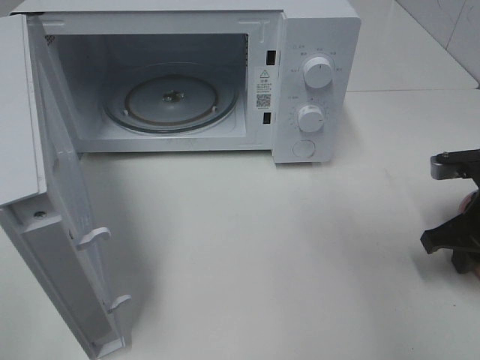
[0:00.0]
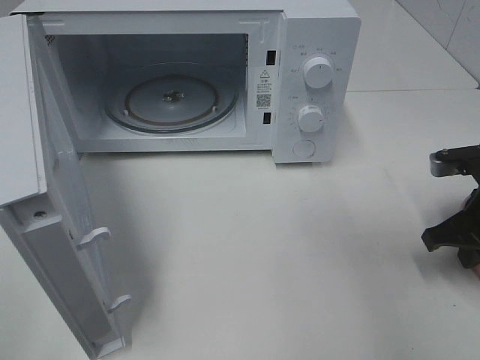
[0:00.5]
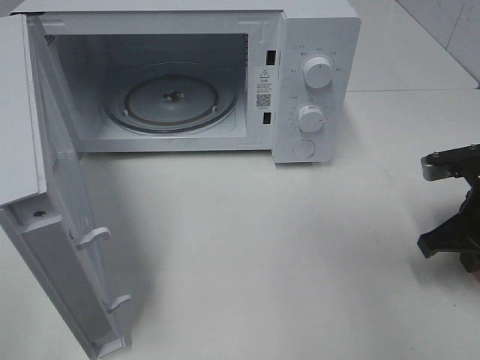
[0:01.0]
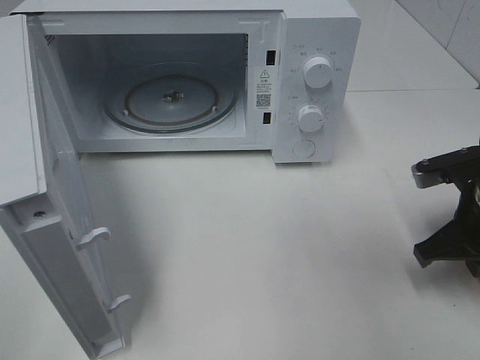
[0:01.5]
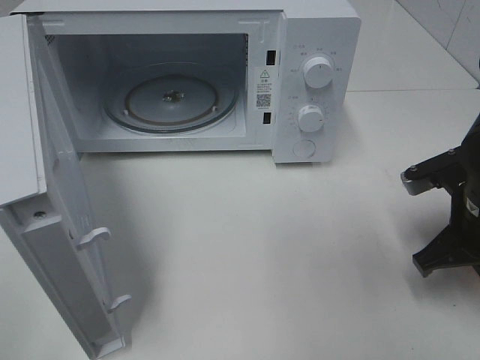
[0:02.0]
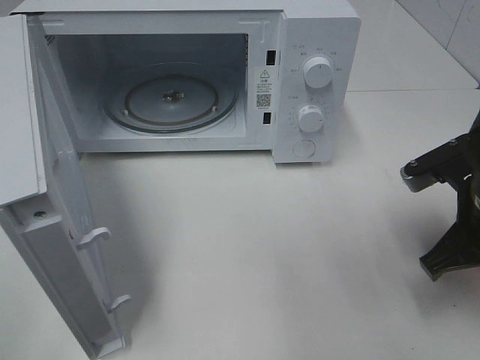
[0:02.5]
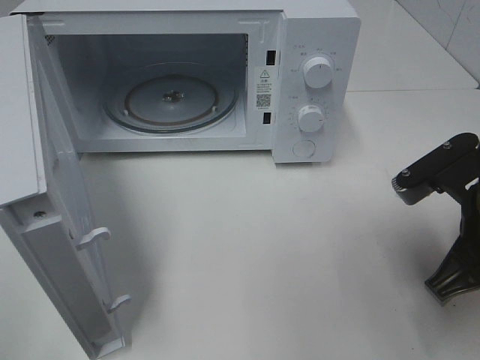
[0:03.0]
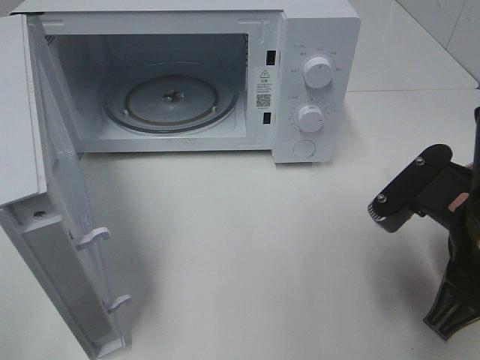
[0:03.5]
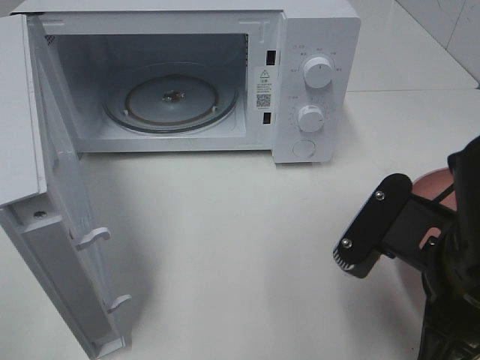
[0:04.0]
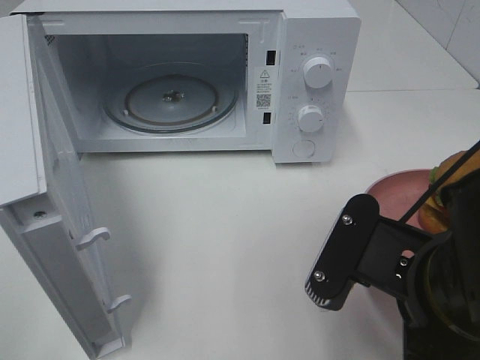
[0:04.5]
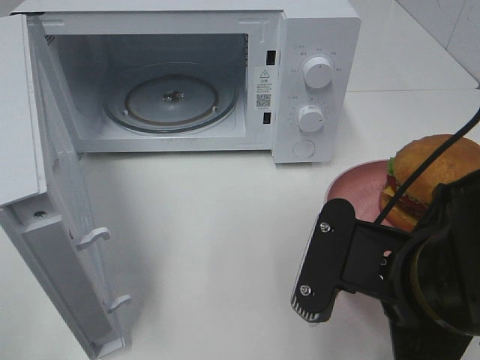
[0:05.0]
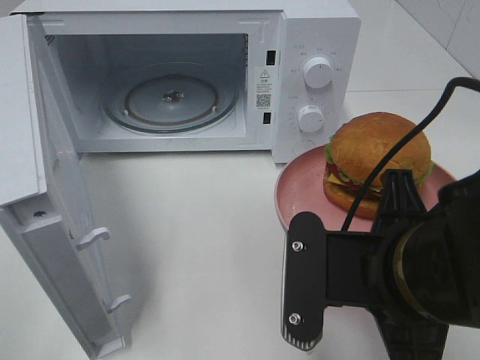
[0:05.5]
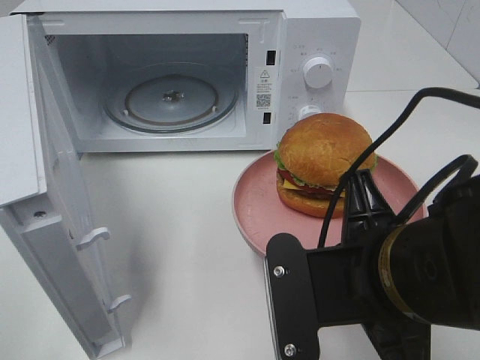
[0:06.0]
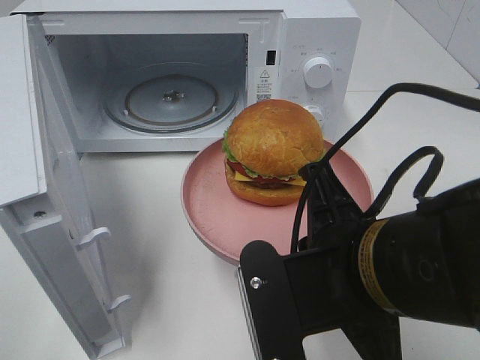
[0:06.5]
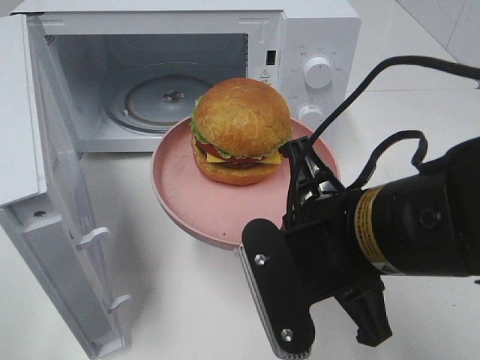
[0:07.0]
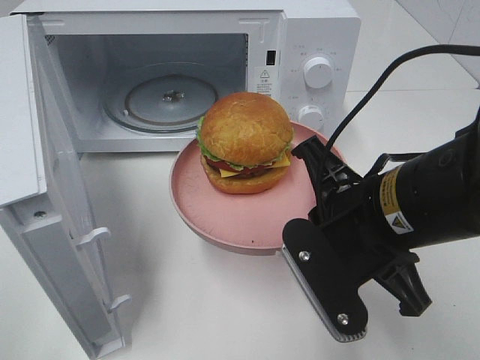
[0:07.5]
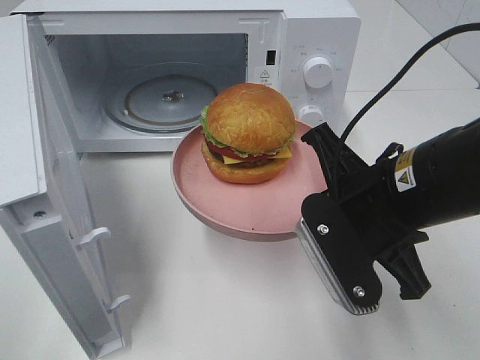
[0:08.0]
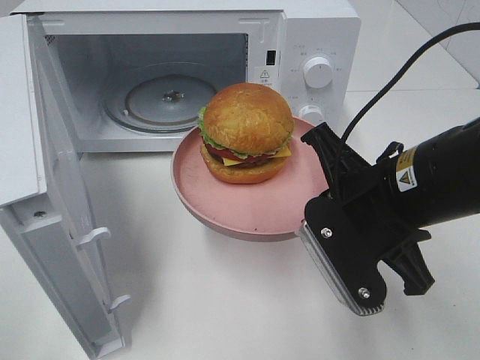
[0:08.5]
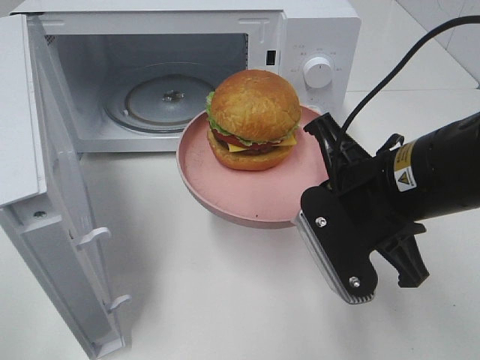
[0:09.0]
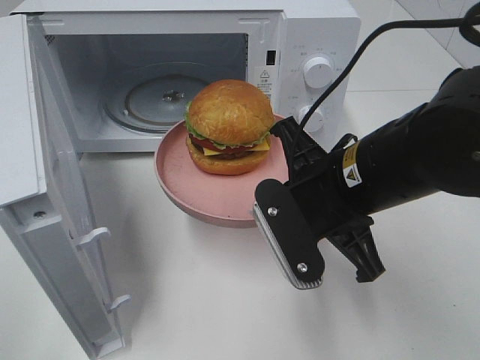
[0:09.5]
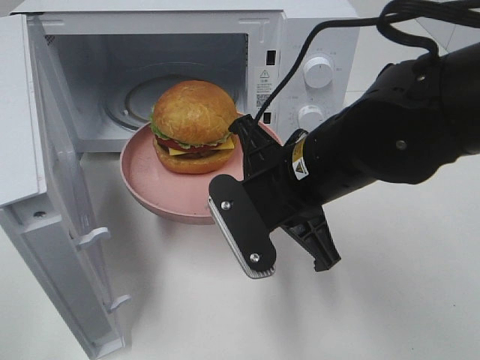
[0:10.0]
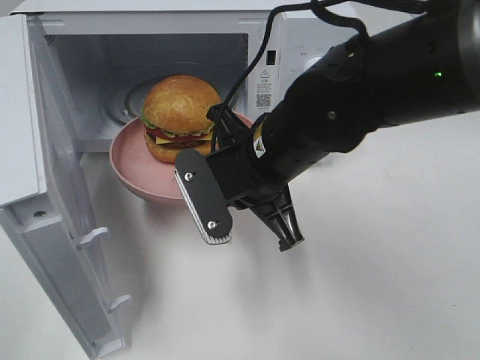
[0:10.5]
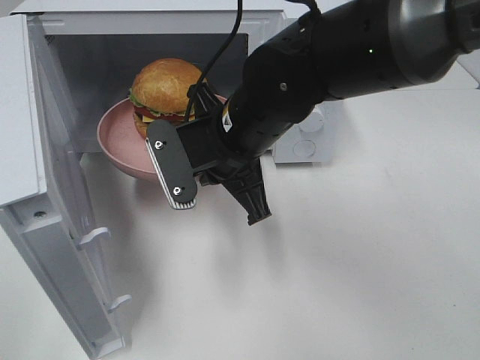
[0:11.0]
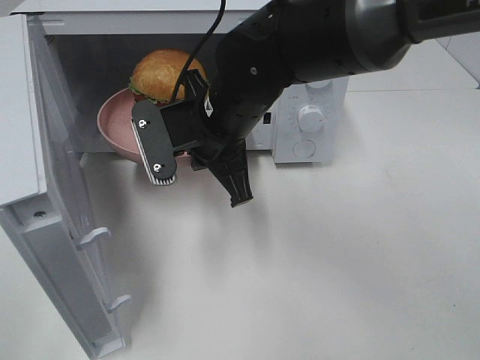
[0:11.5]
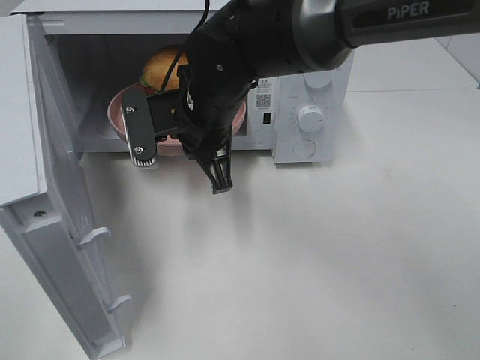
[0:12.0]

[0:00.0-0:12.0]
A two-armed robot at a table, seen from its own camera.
Task of the whole recording: Heat the burger.
0:00.0 to 0:02.0: The right gripper moves roughly 5 cm.
0:02.0 to 0:04.0: The right gripper heads backward, to the left and upward, covering about 15 cm.
0:06.0 to 0:08.0: The right gripper moves forward, some 5 cm.
0:08.0 to 0:10.0: The right gripper shifts about 5 cm to the left.
0:10.0 to 0:12.0: The right gripper is displaced forward and to the left by roughly 15 cm.

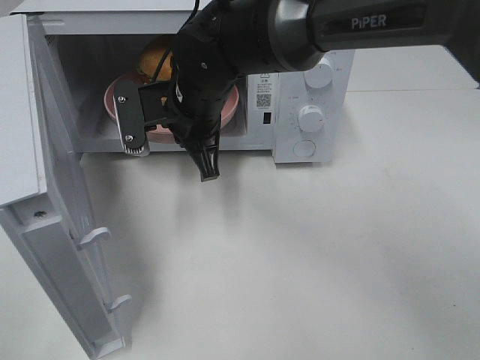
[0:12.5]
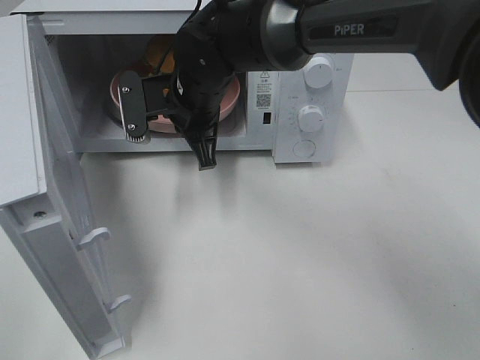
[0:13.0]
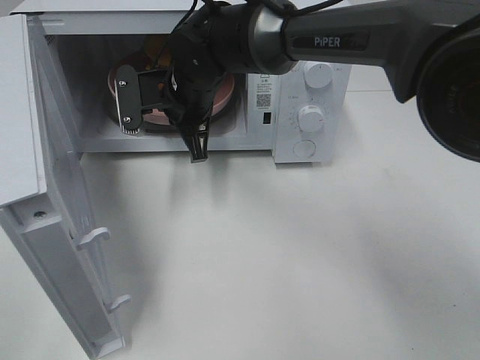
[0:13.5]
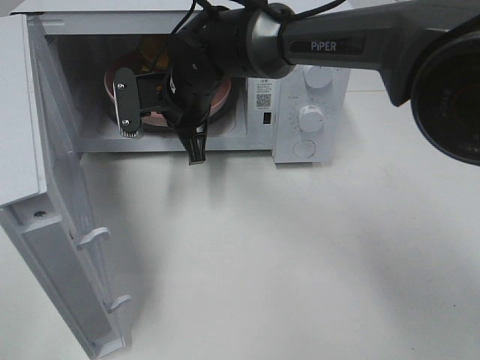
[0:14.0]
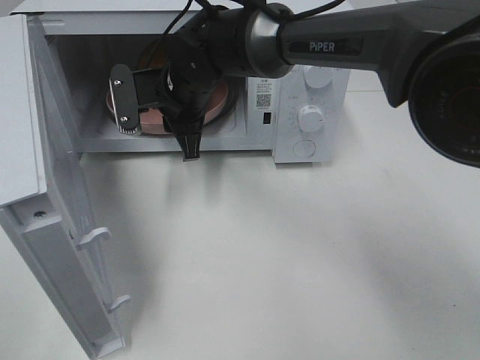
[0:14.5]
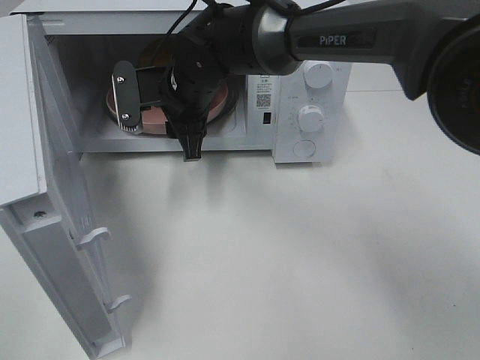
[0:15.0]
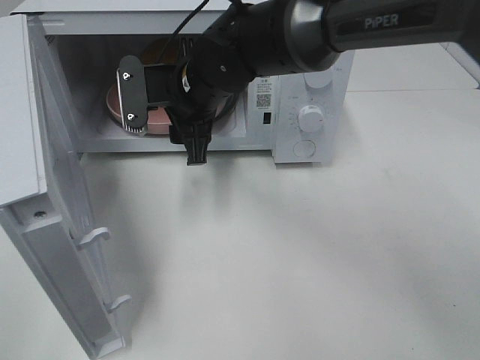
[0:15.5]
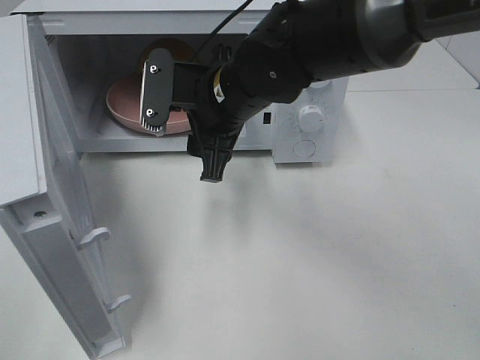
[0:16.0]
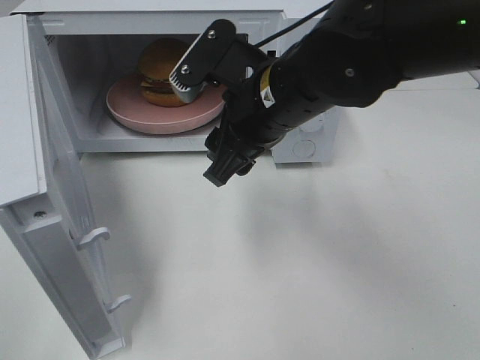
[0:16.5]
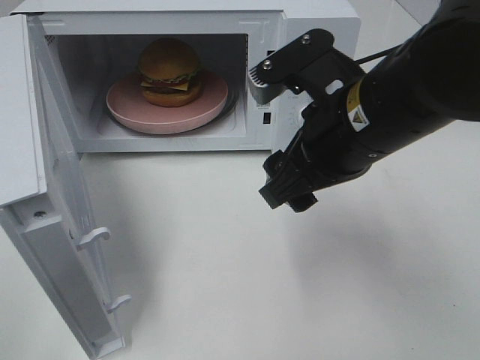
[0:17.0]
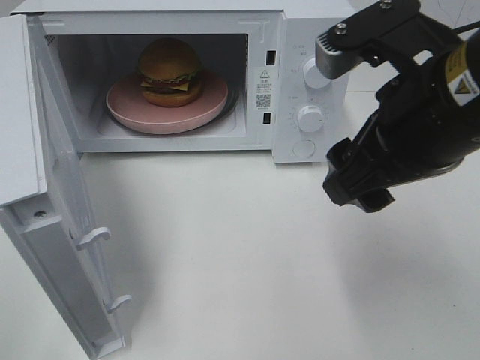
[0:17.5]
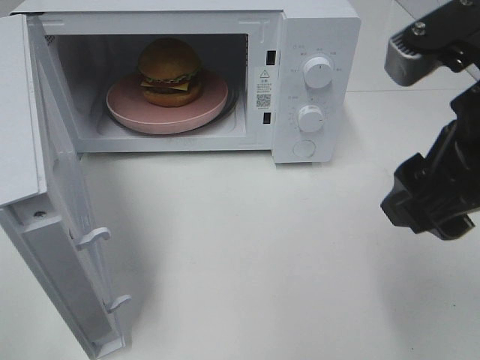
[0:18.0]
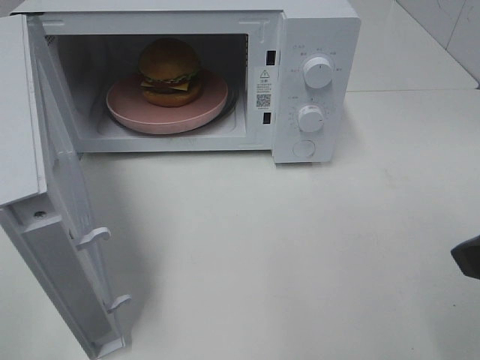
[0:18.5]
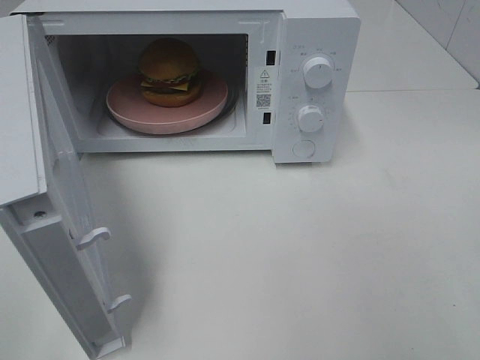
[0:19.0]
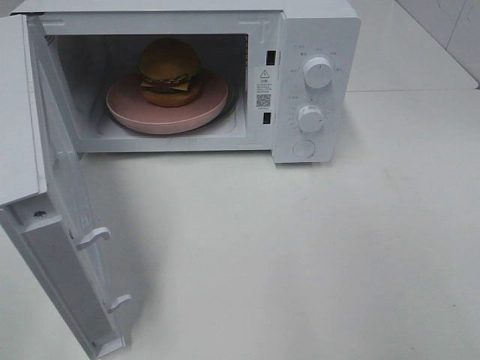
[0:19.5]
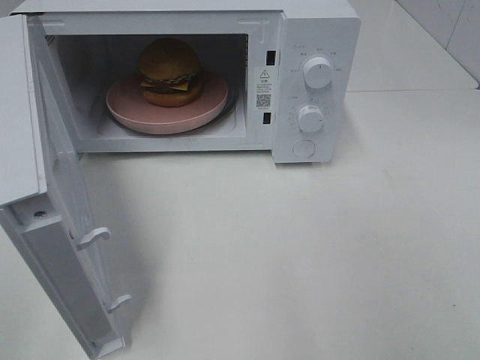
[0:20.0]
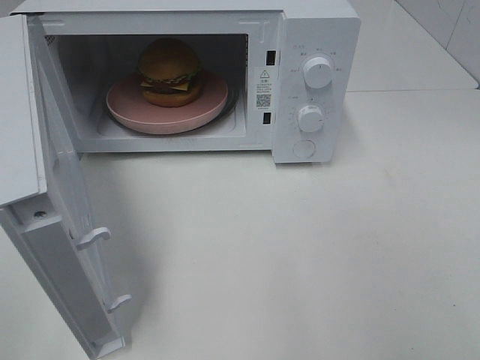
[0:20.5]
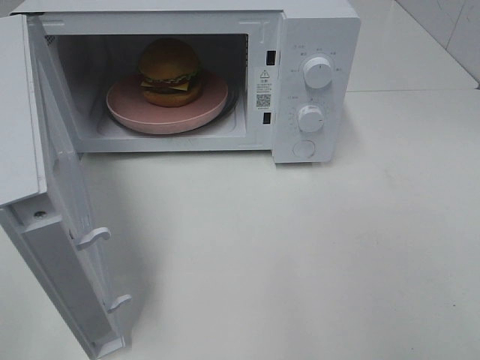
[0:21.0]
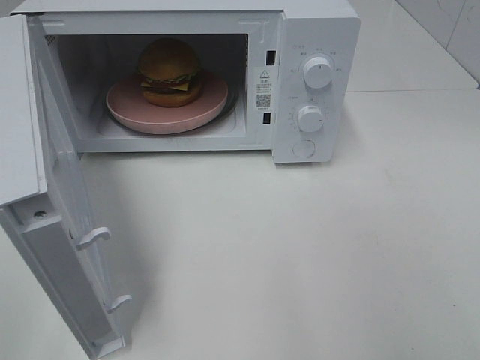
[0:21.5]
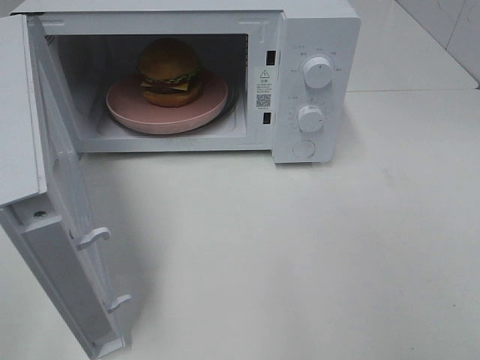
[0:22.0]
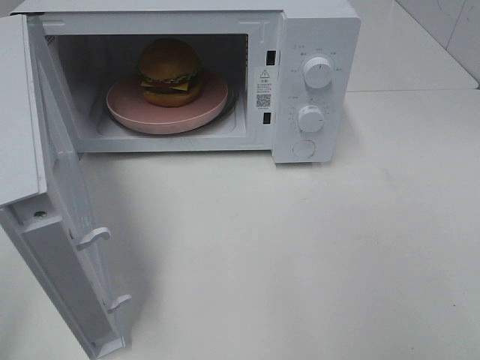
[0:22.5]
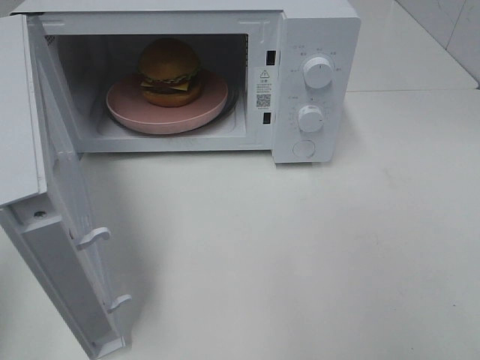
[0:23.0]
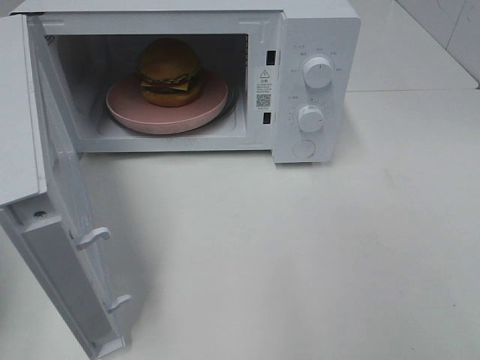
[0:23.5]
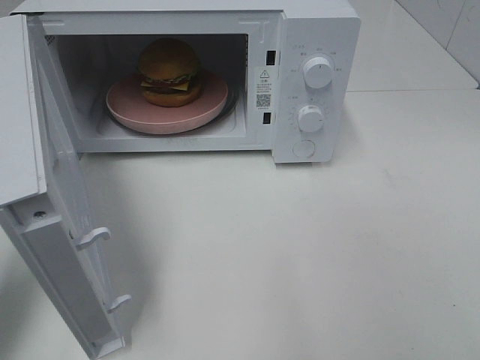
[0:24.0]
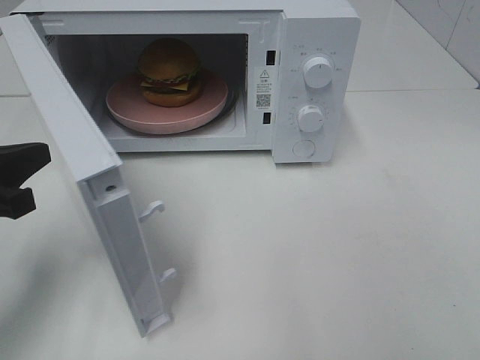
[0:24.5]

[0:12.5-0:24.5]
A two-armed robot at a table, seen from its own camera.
Task of the whole recording: Heat the burger.
Step, 0:12.5 to 0:14.5: Right hand: place the plate in the microwave.
0:12.5 to 0:14.5: The right gripper opens up.
0:14.5 to 0:16.5: The right gripper goes about 15 cm backward, to the right and upward.
0:16.5 to 0:18.5: The right gripper goes about 25 cm to the right and backward.
0:18.5 to 0:20.5: The right gripper moves backward and to the right, approximately 15 cm.
0:22.5 to 0:24.5: The left gripper is displaced forward and downward by roughly 20 cm.

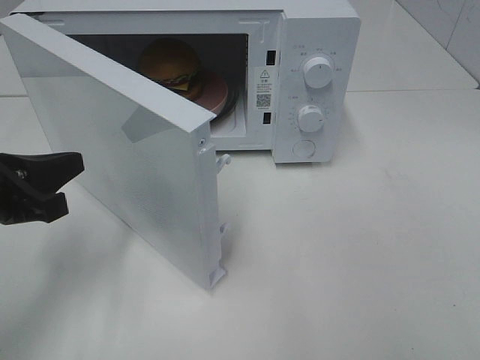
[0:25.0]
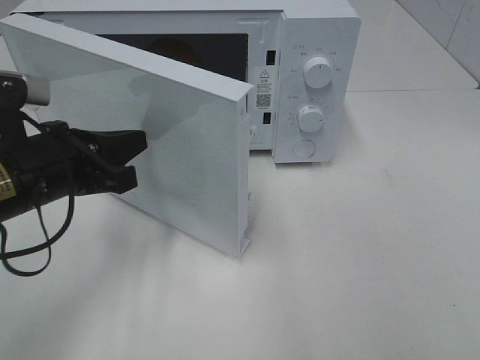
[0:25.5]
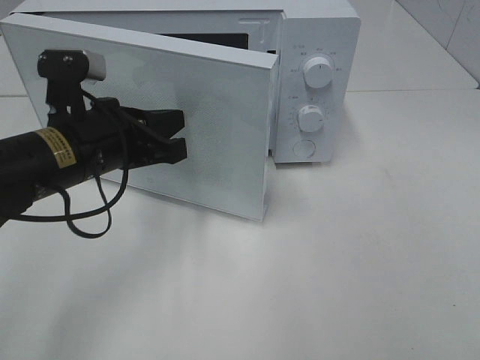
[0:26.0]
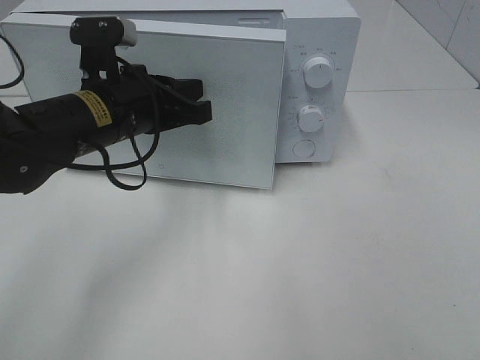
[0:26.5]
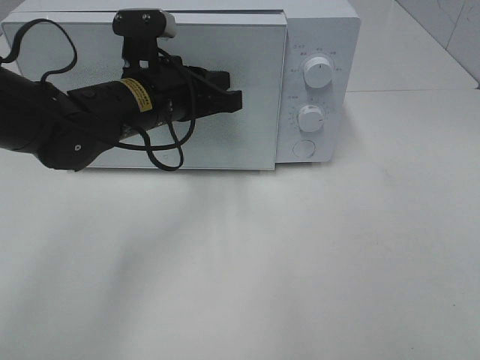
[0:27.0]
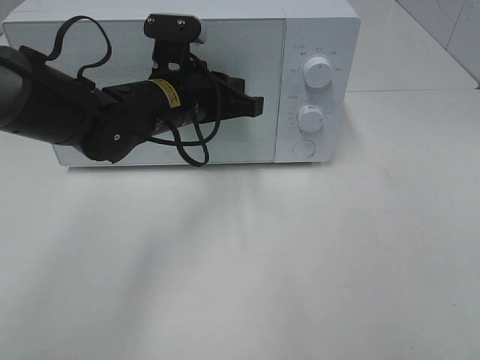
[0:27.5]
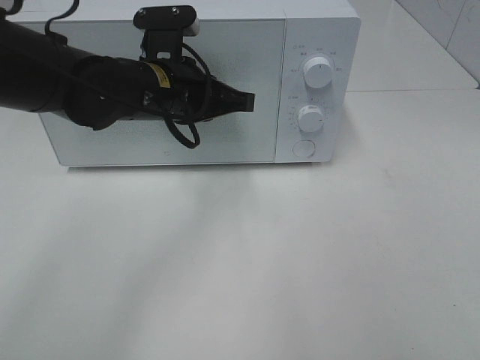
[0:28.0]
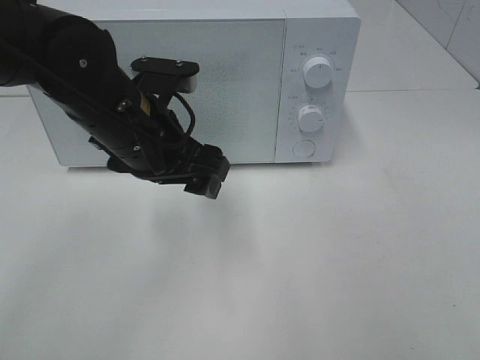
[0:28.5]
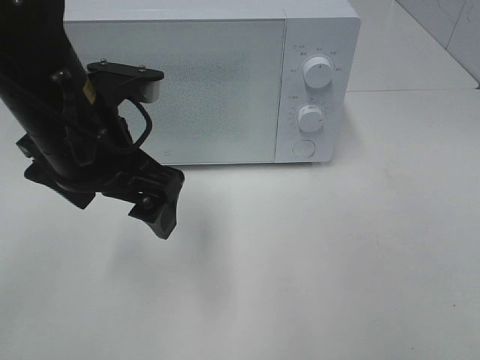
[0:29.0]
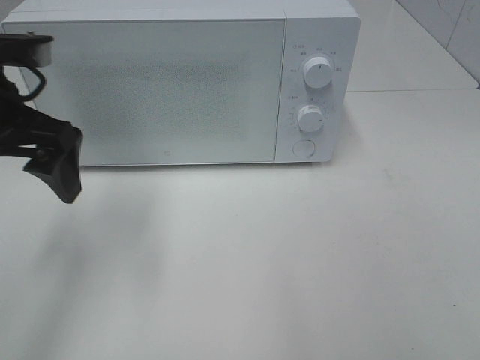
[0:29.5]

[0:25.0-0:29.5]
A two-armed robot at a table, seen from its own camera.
Task of the whole recording: Heat the burger.
Step, 0:25.0 to 0:27.5: Left hand: close the microwave door.
0:25.0 to 0:27.0: The left gripper goes approximately 20 cm to the right and forward.
0:27.0 to 0:29.5: The left gripper travels to the left, upward and backward by about 15 cm, and opens its fingers.
